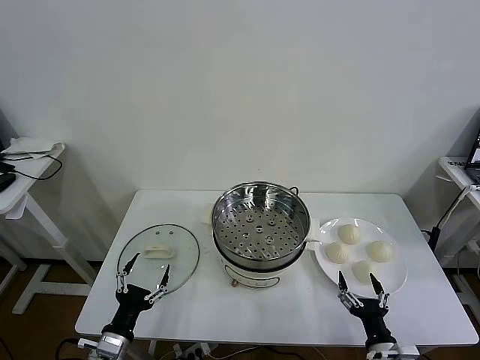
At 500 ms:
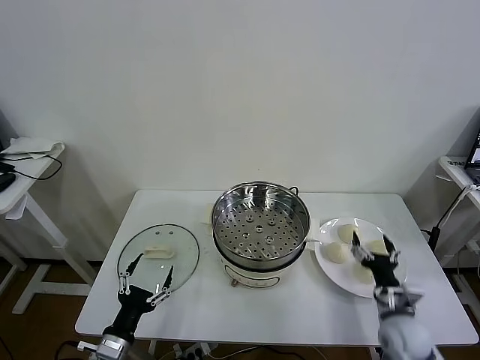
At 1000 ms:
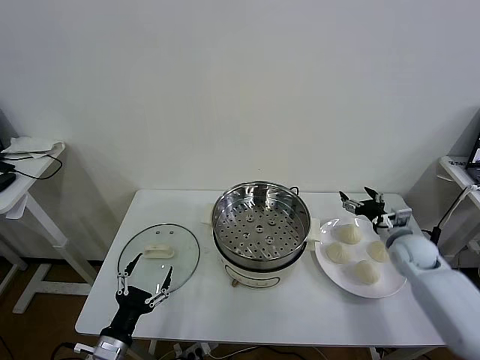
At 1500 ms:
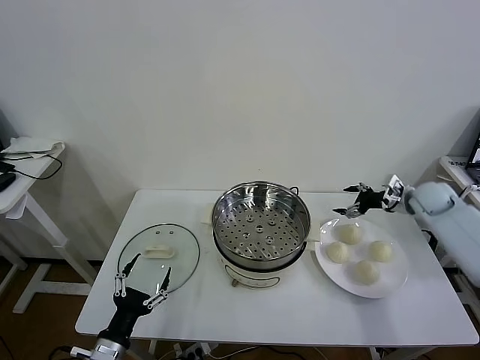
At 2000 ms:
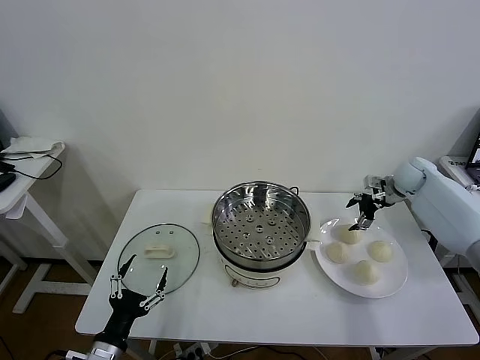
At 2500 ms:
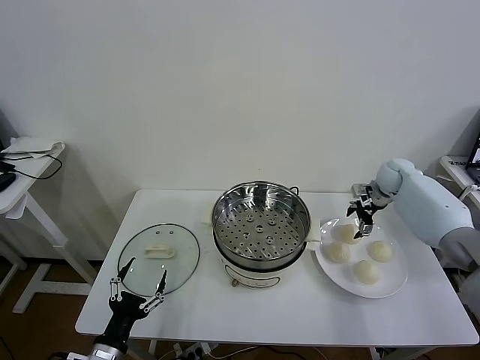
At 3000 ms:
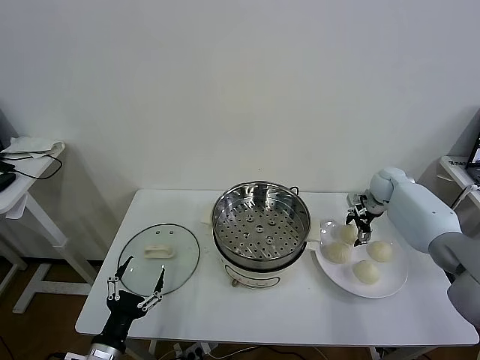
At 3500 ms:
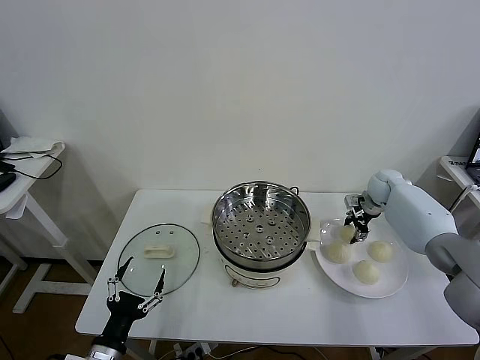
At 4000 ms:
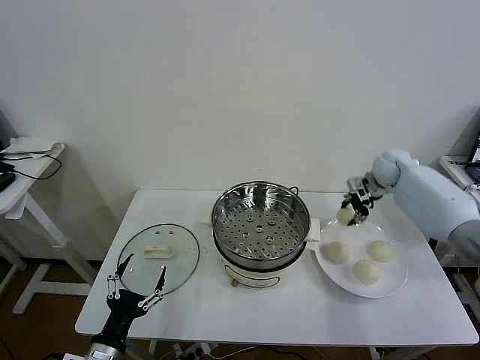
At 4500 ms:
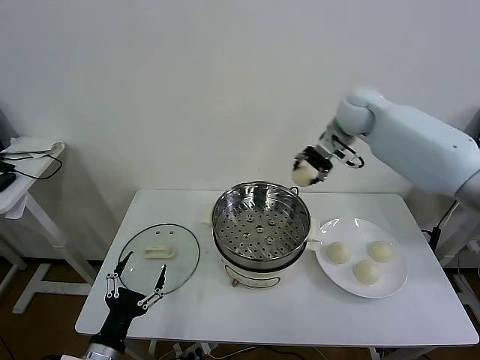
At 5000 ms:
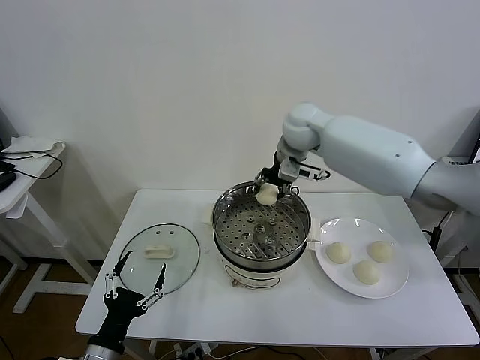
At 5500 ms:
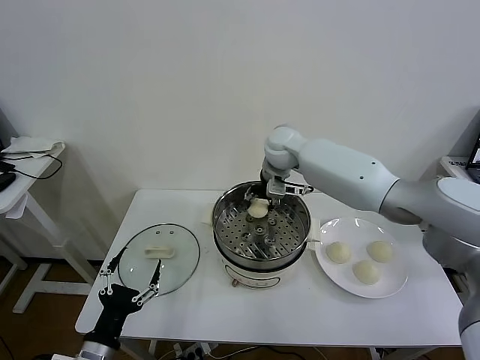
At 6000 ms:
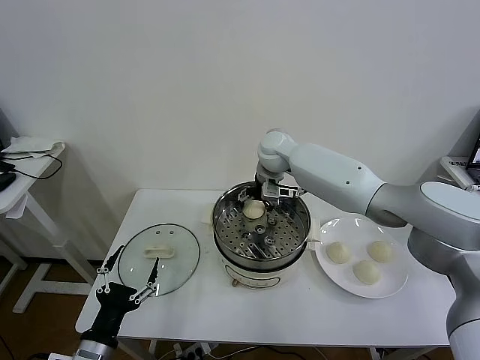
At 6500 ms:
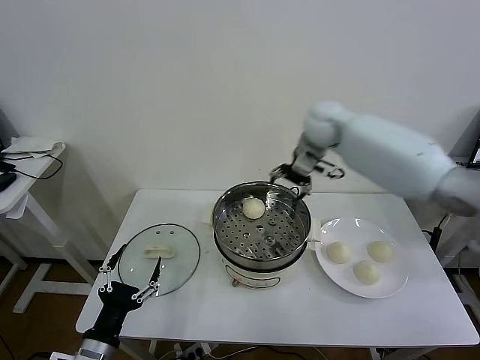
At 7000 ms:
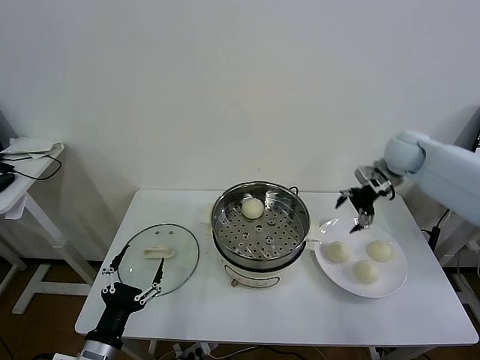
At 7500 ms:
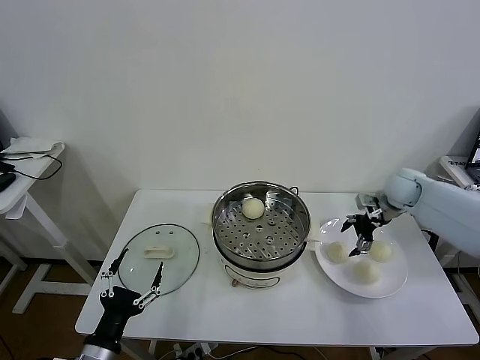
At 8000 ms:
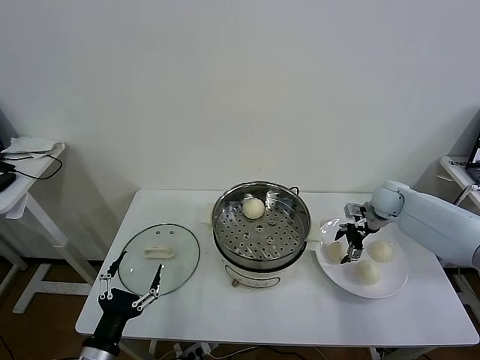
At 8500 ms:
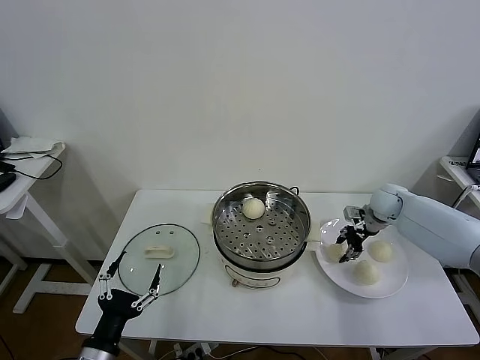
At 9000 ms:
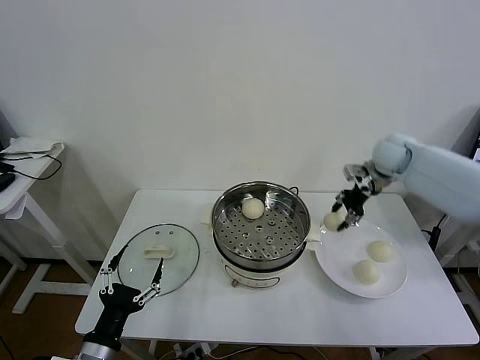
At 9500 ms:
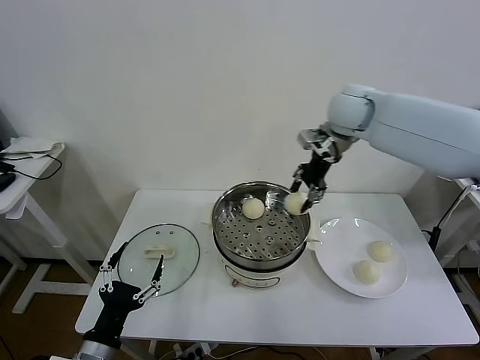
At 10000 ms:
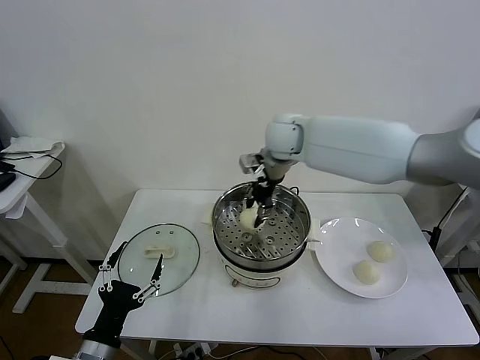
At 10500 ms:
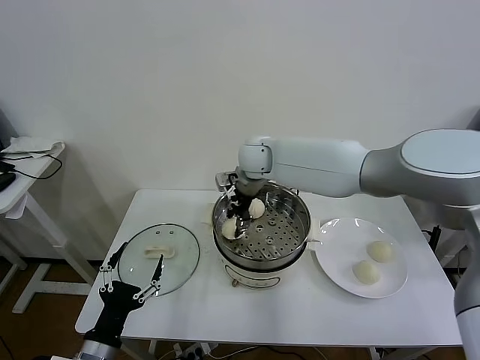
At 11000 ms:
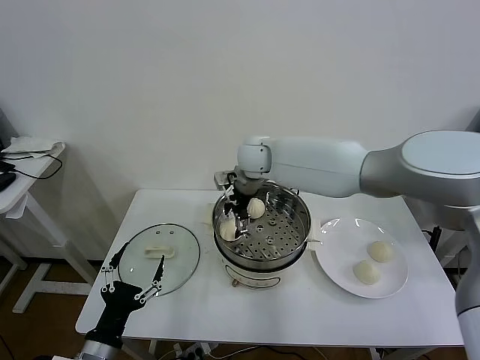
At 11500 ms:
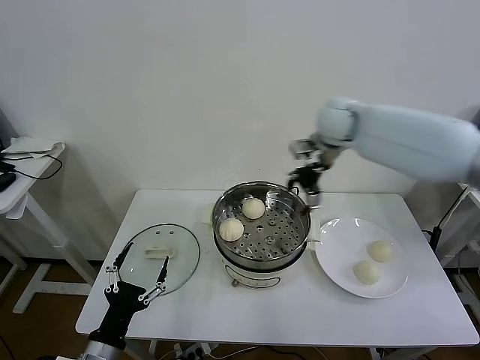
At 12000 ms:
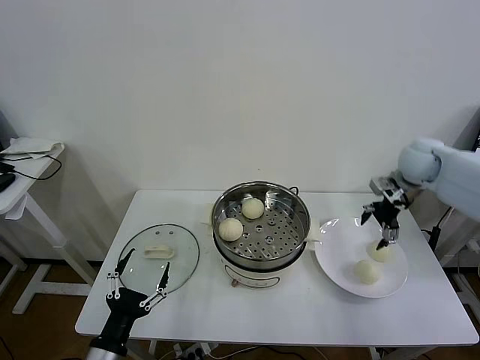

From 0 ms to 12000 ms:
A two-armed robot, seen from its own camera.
Task of the whole recording: take steamed baozi put them in steamer then cover it.
Step, from 0 ms to 3000 ms: Grasp the baozi in the plate with right gripper.
Step, from 3500 ms to 6000 ms: Place the baozi on the steamer with right gripper.
Step, from 6500 ms to 8000 ms: Grasp the baozi in the plate with right gripper.
Step, from 8500 ms to 10500 ms: Place the baozi on the steamer with right gripper.
From 2000 ms to 4000 ms: The right gripper shifts approximately 10 cm to the left and upward, and closes up.
From 4000 ms to 6000 ms: The right gripper moves to the left, some 30 cm, and opens up.
From 6000 ms to 8000 ms: The right gripper goes some 35 cm to the right and downward.
From 8000 ms to 10000 ms: The right gripper is displaced to the left and upward by some 35 cm, and closes up.
From 10000 ms to 12000 ms: The right gripper is displaced to the right by about 35 cm, and opens its fingers.

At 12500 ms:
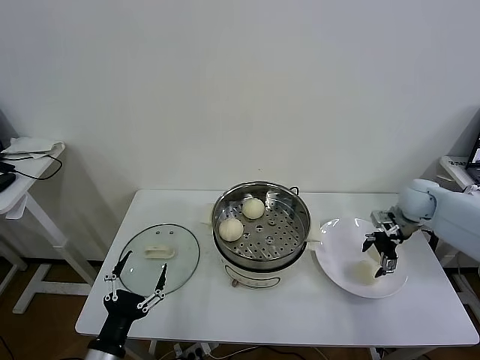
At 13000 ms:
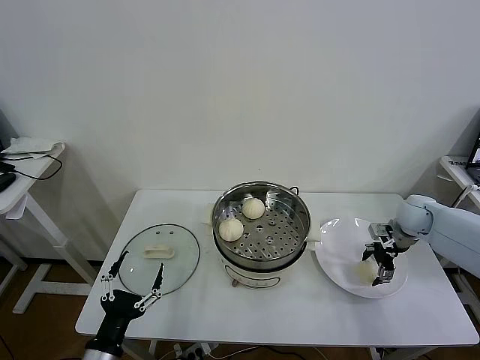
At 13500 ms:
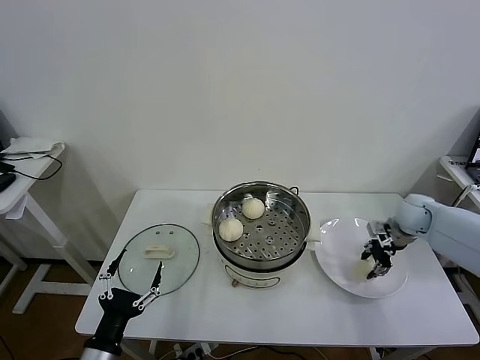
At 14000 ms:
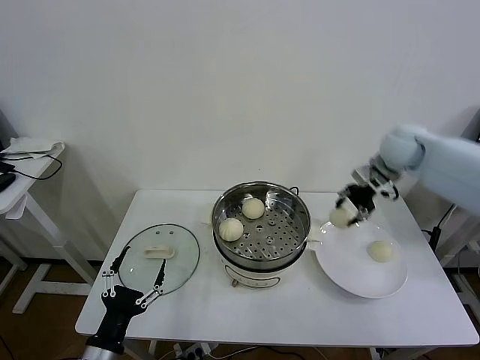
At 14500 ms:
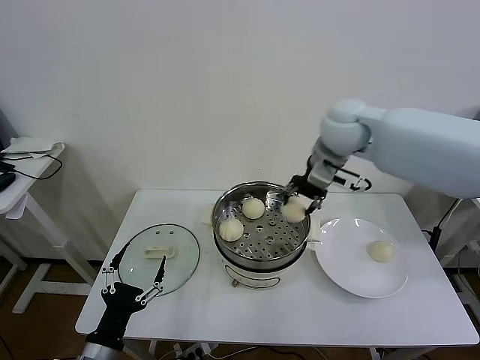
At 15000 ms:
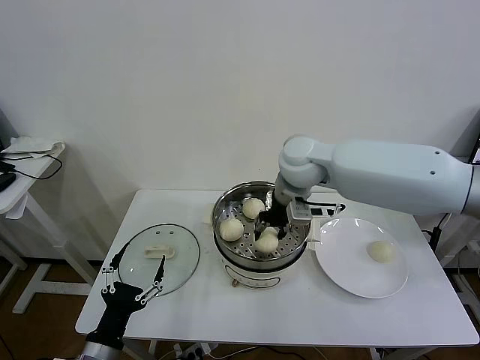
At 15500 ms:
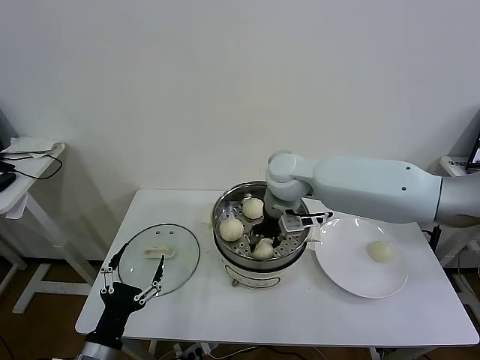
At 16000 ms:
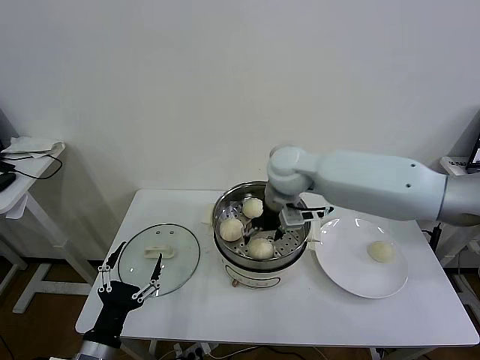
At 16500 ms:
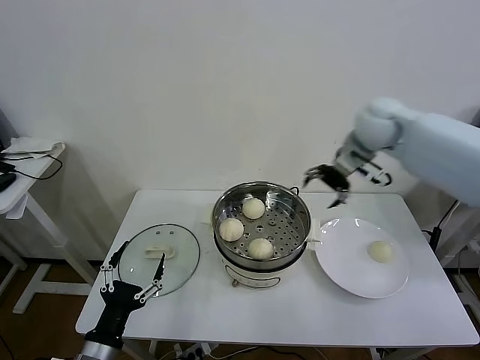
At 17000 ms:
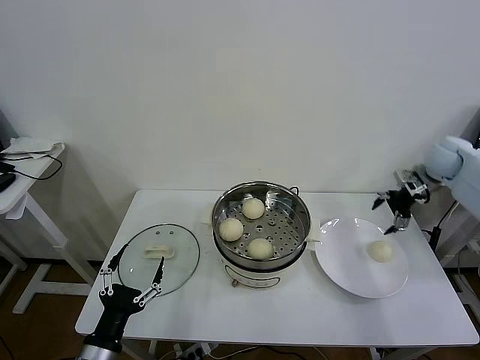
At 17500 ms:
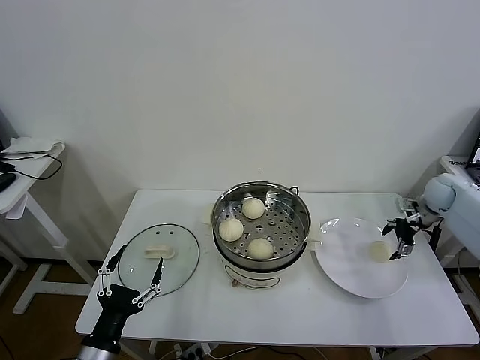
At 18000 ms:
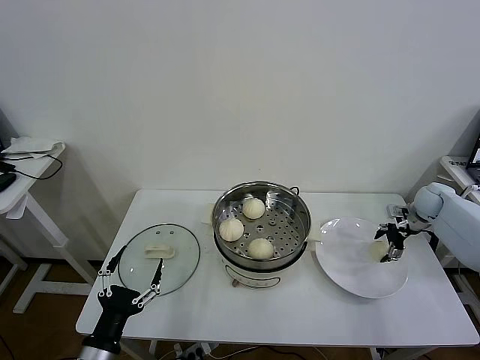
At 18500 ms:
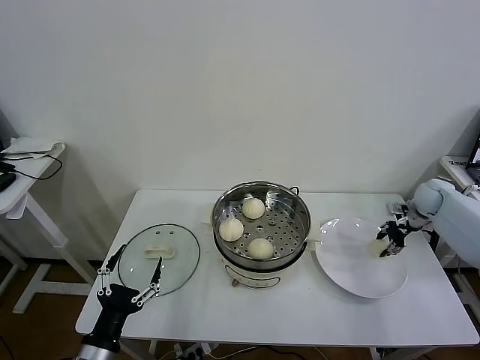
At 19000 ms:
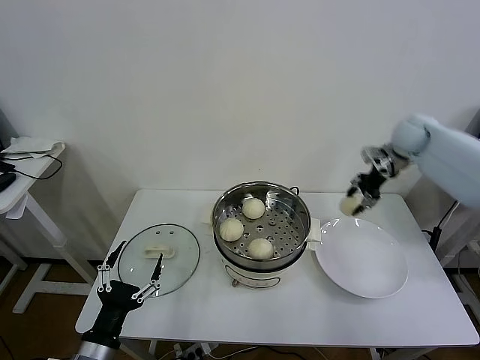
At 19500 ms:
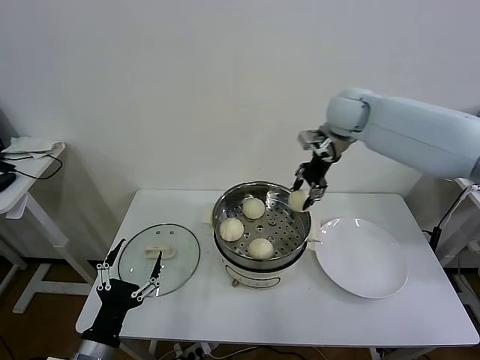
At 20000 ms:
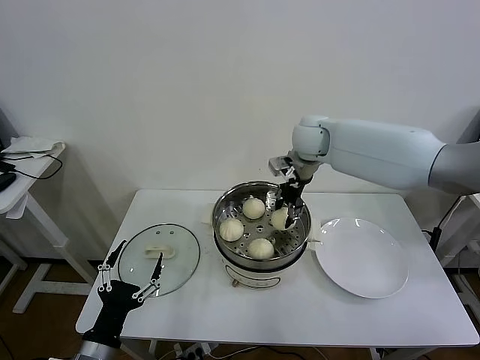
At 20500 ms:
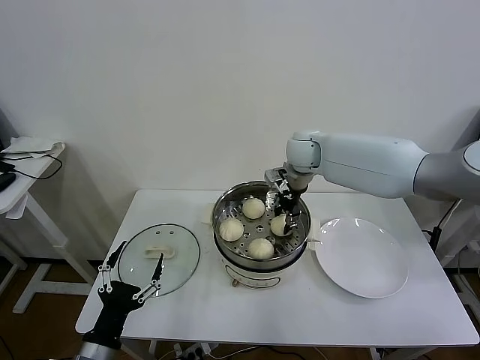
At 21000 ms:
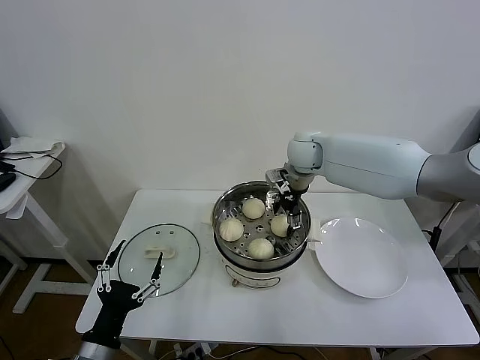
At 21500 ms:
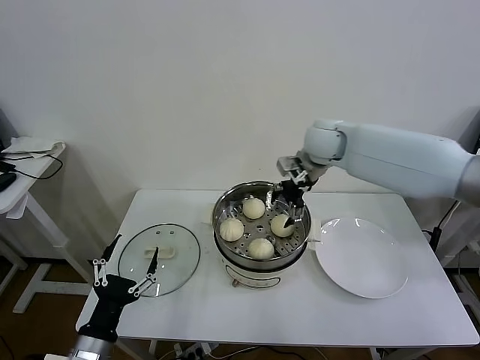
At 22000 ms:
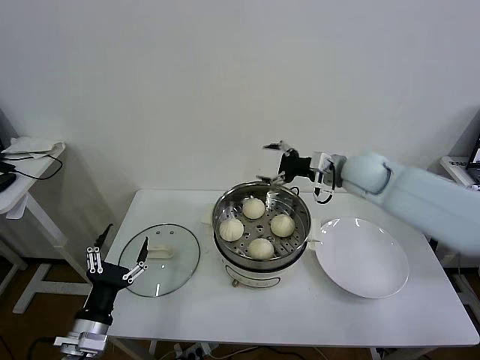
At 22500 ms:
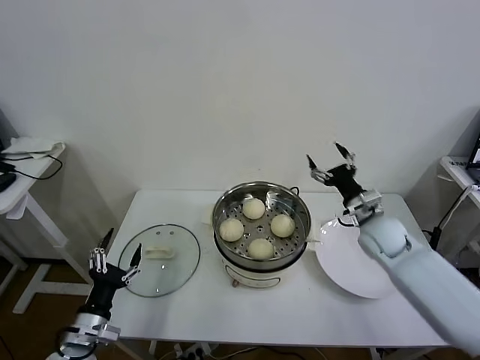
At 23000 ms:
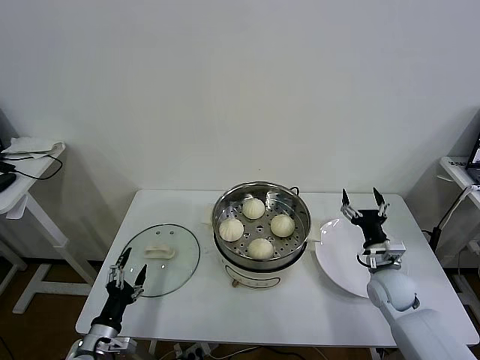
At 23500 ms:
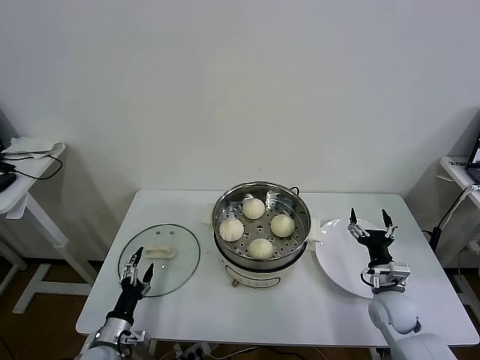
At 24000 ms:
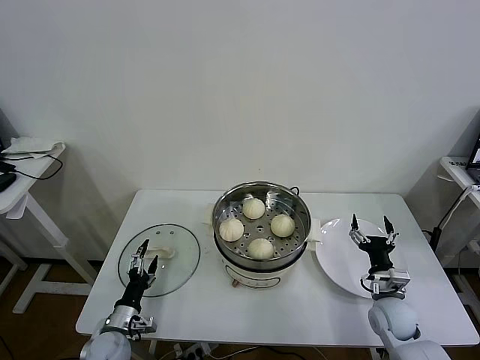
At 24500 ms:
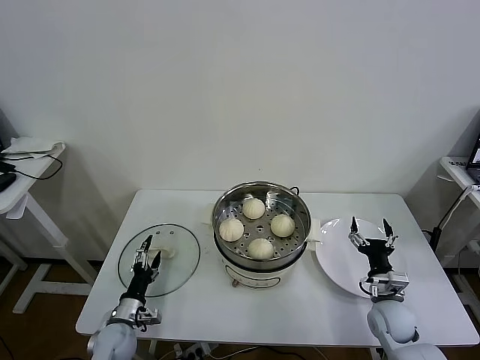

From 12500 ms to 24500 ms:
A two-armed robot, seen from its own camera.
Task of the whole recording: take steamed baozi put them in steamer then cover it.
Step, from 13500 ms to 15500 ms: Place the baozi on the steamer with right gripper.
Step, from 16500 ms to 18000 ms: Grasp the baozi in the plate with right gripper.
Step, from 18500 ms to 21000 ms: Place the baozi on the steamer with right gripper.
From 12500 ms to 14500 ms: The right gripper moves to the left and upward, approximately 30 cm, and closes.
From 14500 ms to 16500 ms: The right gripper heads to the right, covering about 10 cm, and opens up.
From 16500 ms to 18500 ms: The right gripper travels to the right and downward by roughly 30 cm, and closes its fingers.
From 18500 ms to 20500 ms: The right gripper is displaced to the left by about 35 cm.
From 20500 ms to 22500 ms: The right gripper heads to the right, backward and downward, covering about 25 cm, and opens. The left gripper moves forward, some 5 cm.
From 22500 ms to 24500 ms: The right gripper is displaced downward and backward by some 20 cm. The left gripper is displaced downward and forward by about 15 cm.

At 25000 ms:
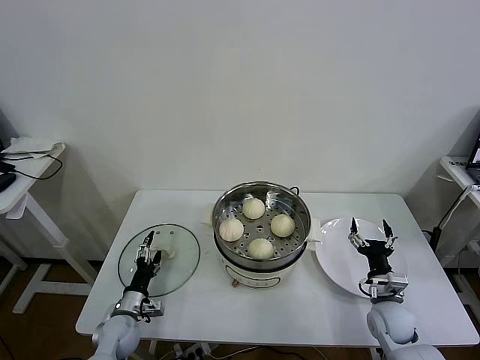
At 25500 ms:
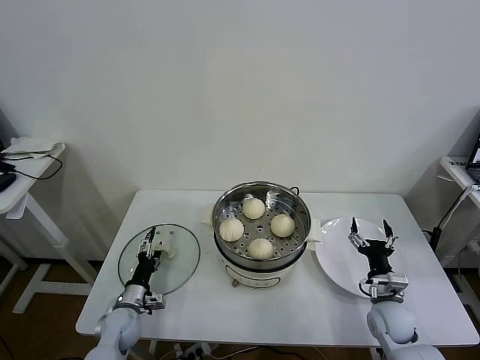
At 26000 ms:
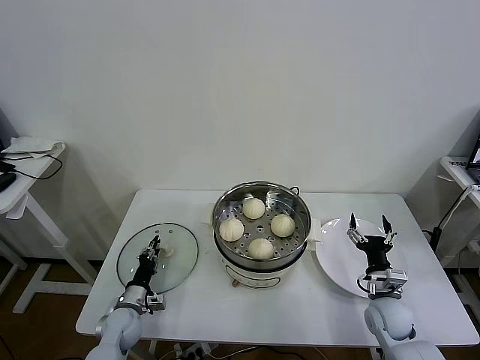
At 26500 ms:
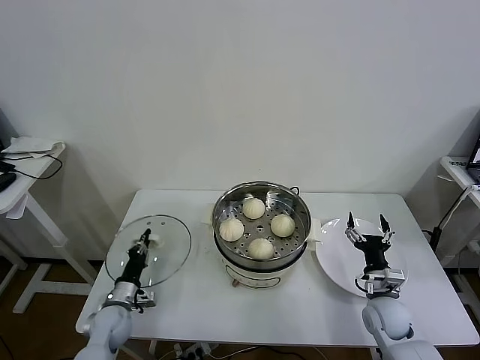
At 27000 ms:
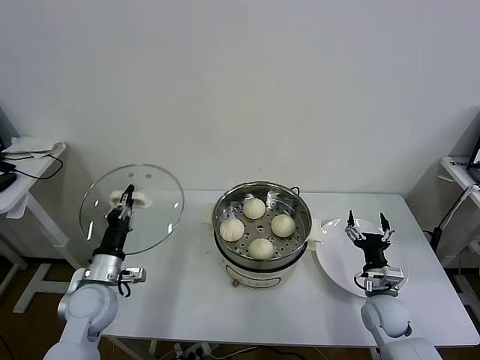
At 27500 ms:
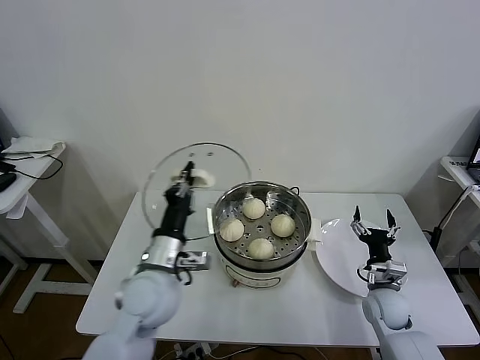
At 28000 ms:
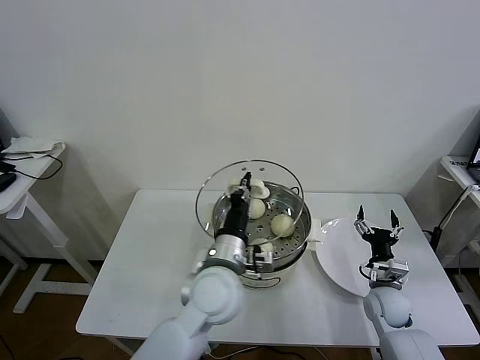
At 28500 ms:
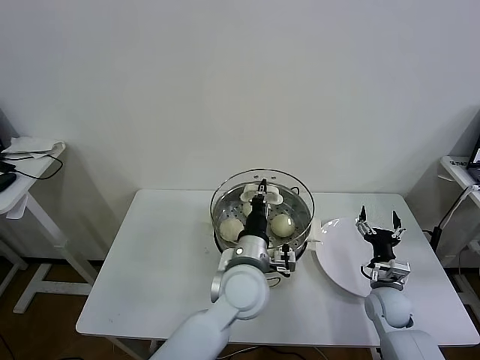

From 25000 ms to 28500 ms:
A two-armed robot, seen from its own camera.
Task of the whole recording: take steamed baozi put them in steamer then cover it.
From 25000 ms to 27000 ms: The left gripper shifts about 15 cm upward, and closes up.
From 27000 ms to 28500 ms: The left gripper goes some 30 cm to the right.
